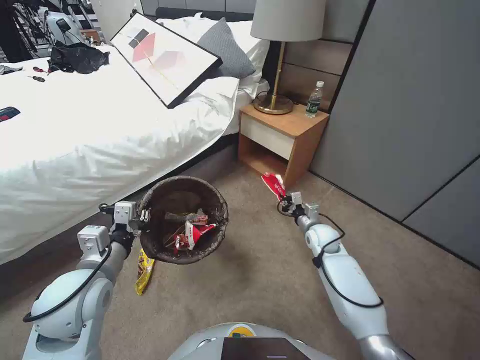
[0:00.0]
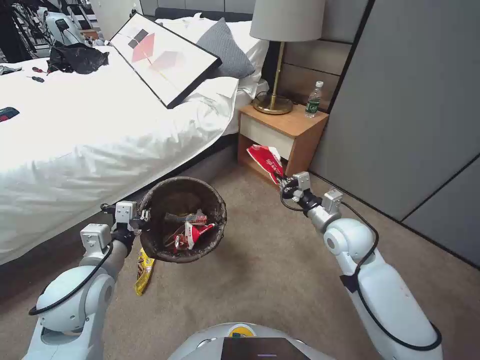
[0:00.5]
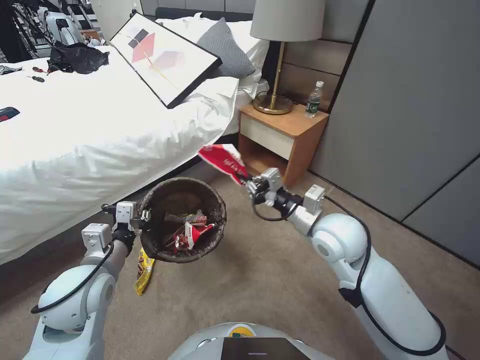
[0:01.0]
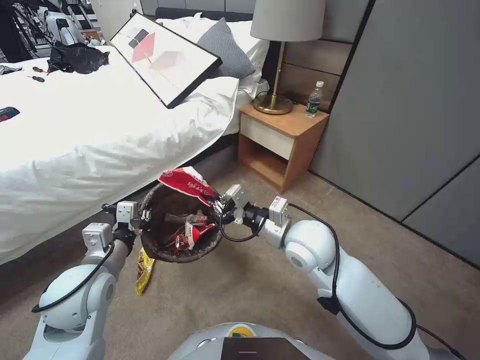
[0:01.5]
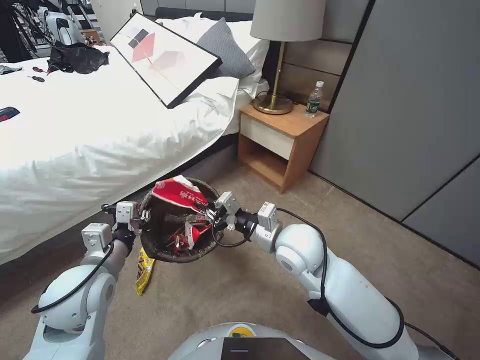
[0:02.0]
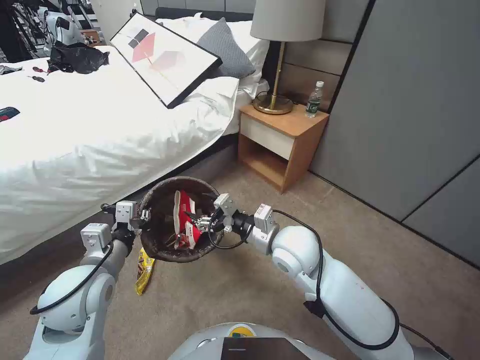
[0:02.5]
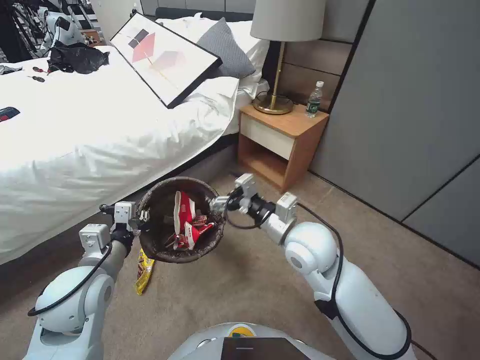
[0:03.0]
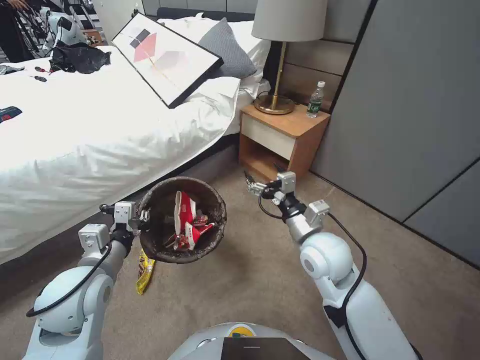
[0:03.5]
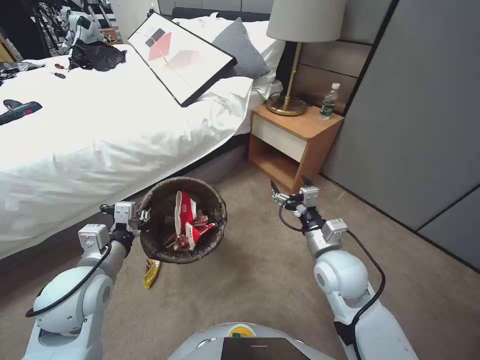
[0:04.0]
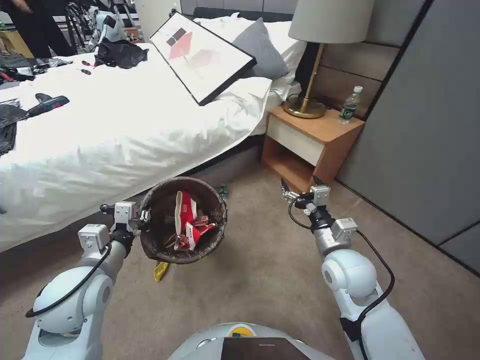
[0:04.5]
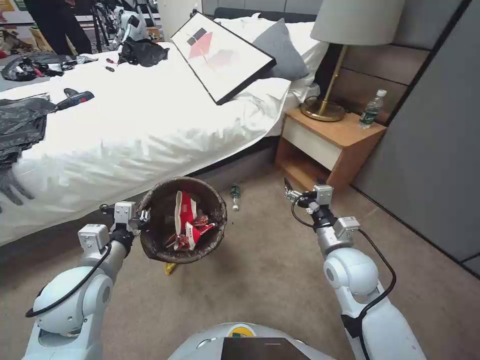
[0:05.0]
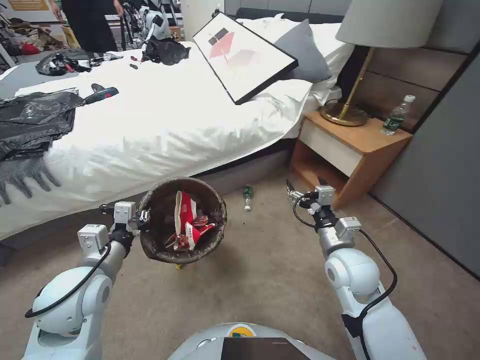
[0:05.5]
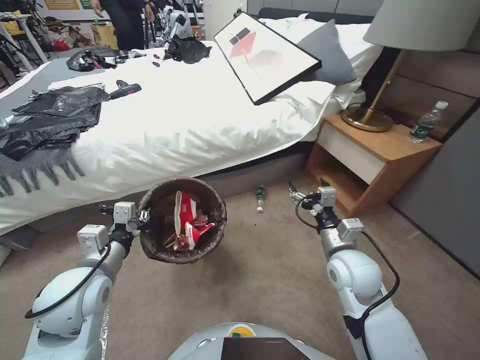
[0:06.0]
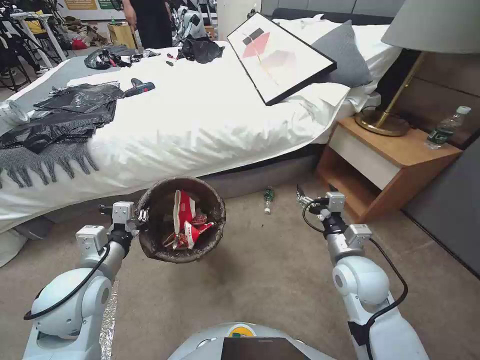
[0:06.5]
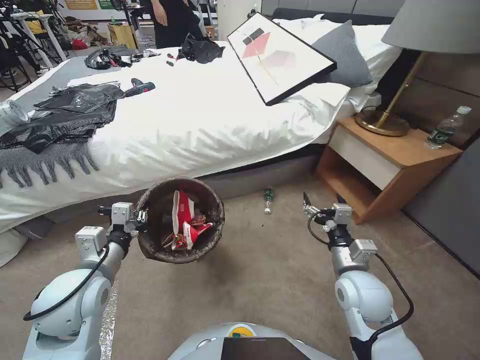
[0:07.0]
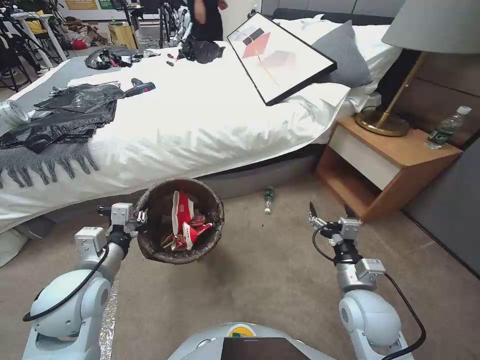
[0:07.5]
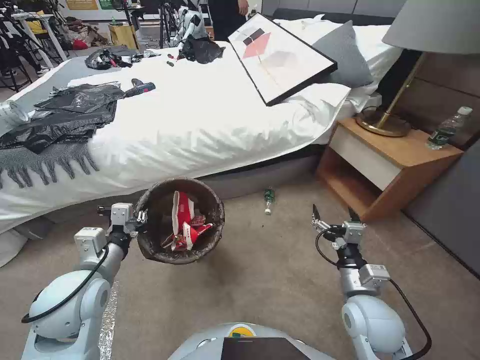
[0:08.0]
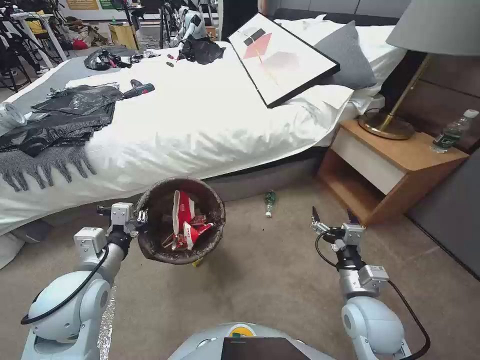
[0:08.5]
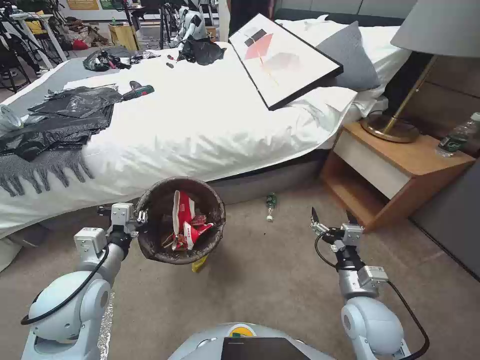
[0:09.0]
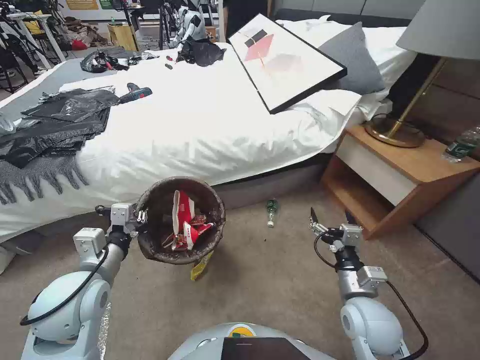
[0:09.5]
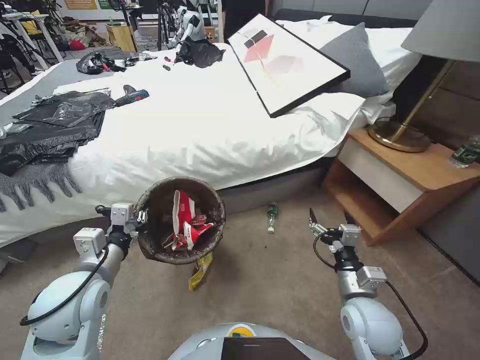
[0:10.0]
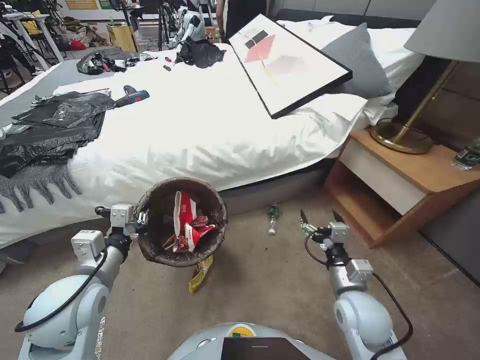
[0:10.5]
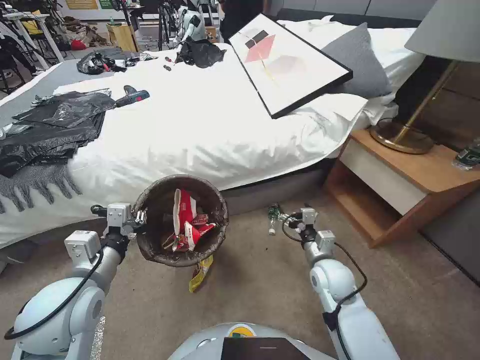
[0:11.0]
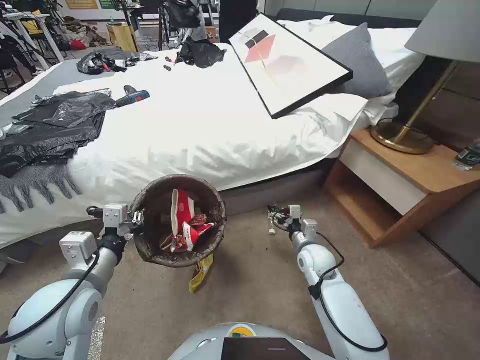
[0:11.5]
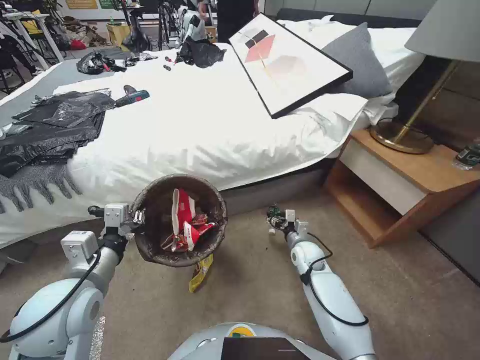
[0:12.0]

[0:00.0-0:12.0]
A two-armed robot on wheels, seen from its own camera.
Task of the whole recording: Pick up the trash bin, then pick up the garbage from the floor and place it into the trash bin.
0:00.0 to 0:02.0: The right gripper shifts about 30 cm upward, to the left and backward.
0:02.0 to 0:04.0: The right gripper goes roughly 10 cm to the right and downward, and opens.
0:06.0 to 0:08.0: The right gripper is displaced backward by some 10 cm.
0:10.0 to 0:12.0: The right gripper goes some 20 cm forward and downward.

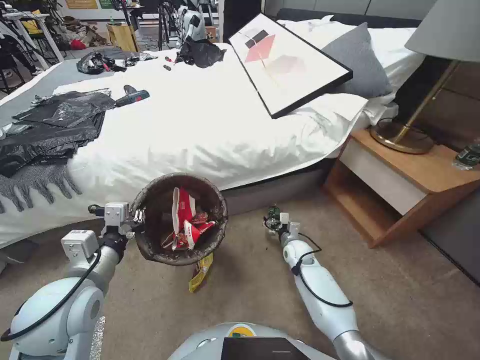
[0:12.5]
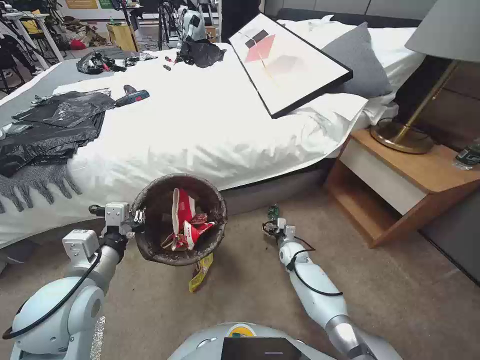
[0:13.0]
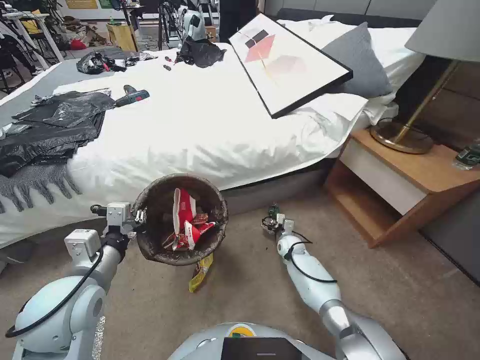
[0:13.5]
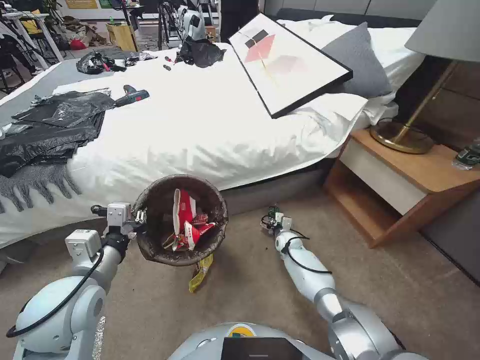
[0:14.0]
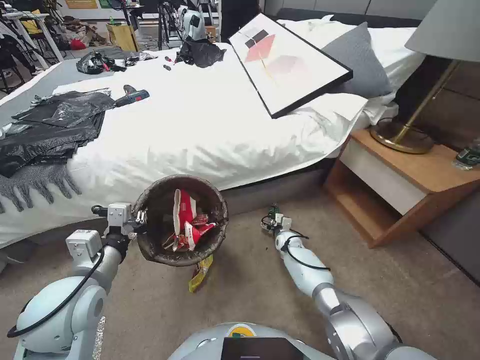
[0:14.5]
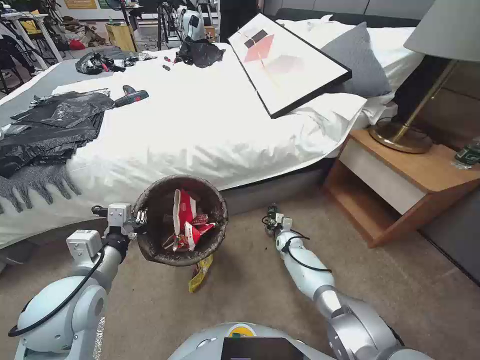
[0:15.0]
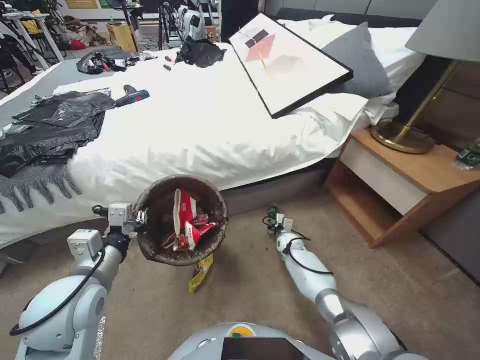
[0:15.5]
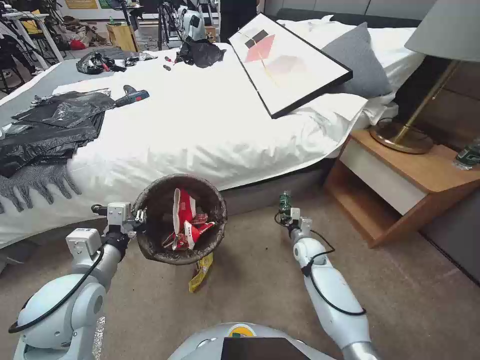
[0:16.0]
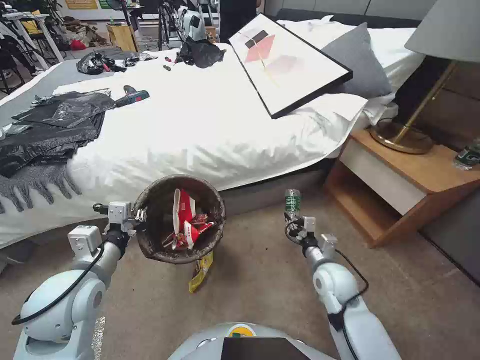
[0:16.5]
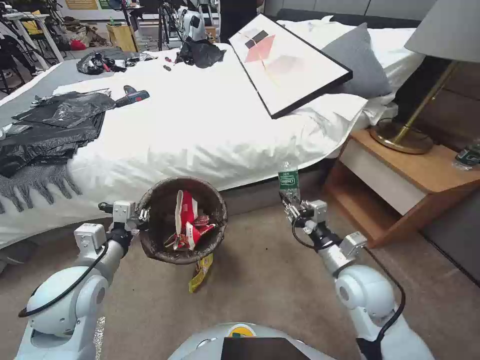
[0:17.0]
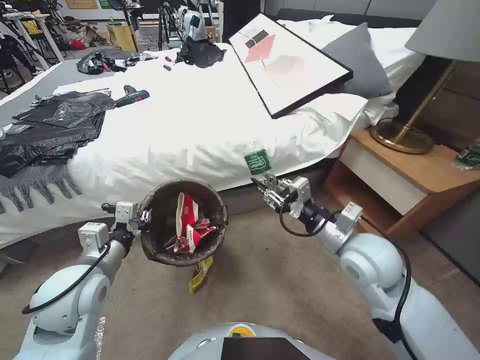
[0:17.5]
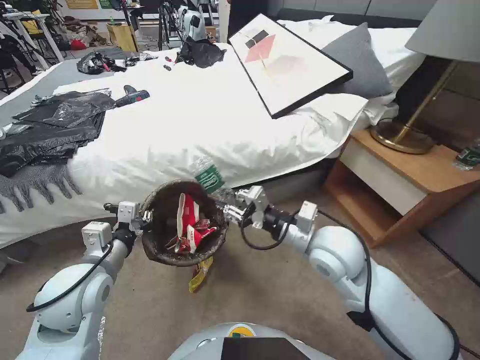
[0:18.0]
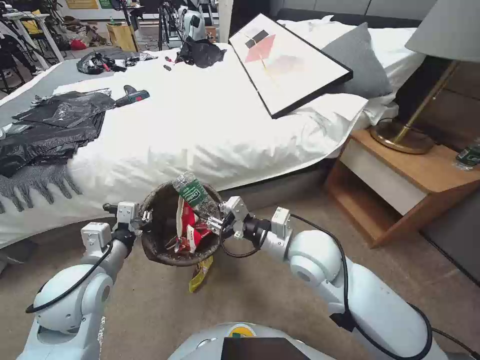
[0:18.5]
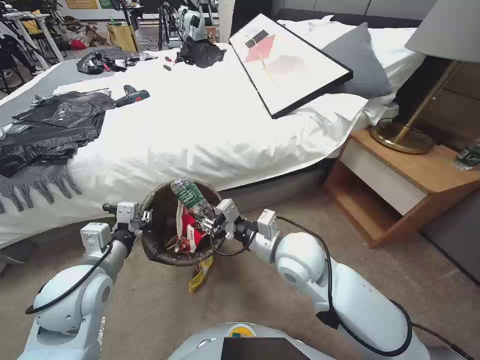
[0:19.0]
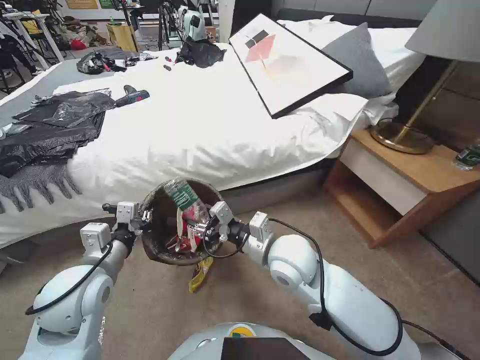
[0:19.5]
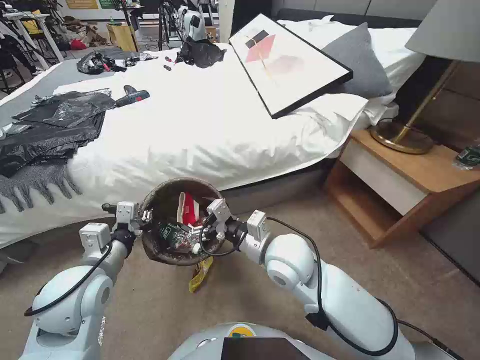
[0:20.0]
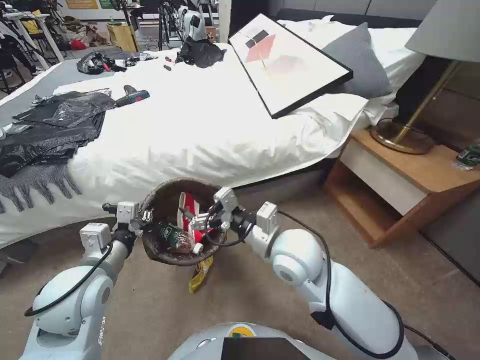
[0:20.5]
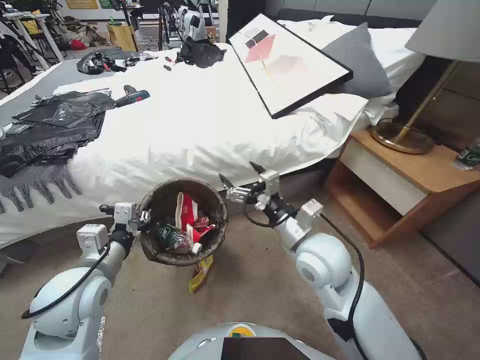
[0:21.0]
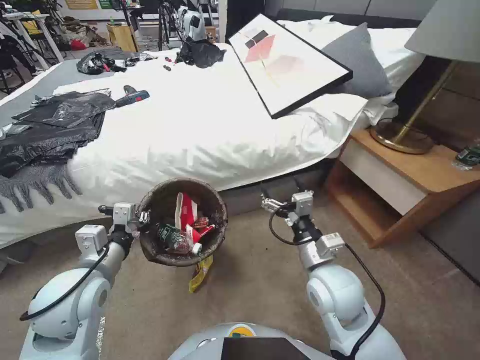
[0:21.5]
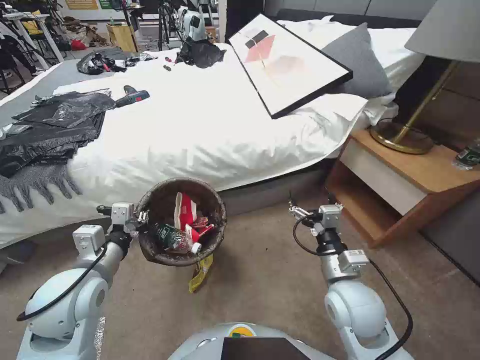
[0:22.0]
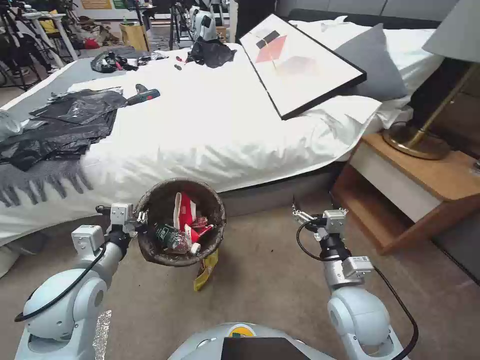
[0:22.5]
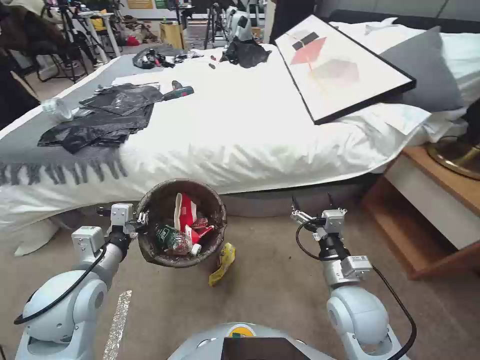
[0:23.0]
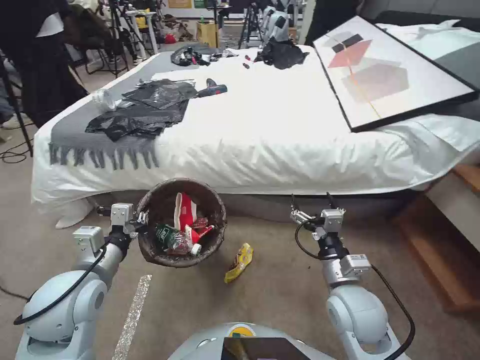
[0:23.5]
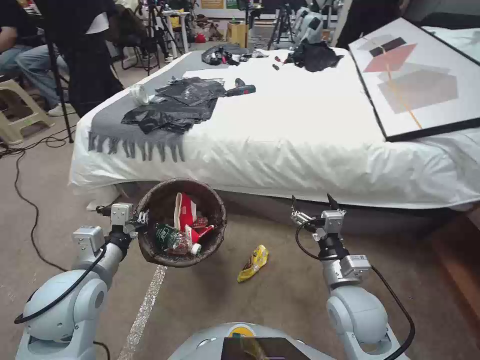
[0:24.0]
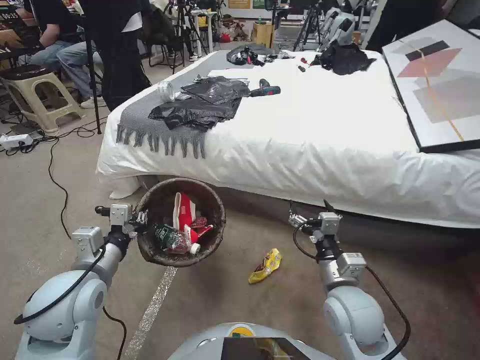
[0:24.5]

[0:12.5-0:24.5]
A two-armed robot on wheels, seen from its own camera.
Task of the whole recording: Pick up the trash bin, then pick up the garbage from the floor and place it into the trash bin.
0:12.5 to 0:14.5: The right gripper goes about 10 cm forward and downward.
0:14.5 to 0:16.5: The right gripper travels backward and upward by approximately 25 cm, and closes.
0:16.5 to 0:18.5: The right gripper travels upward and to the left by roughly 20 cm.
0:18.5 to 0:20.5: The right gripper opens its fingers.
0:20.5 to 0:22.5: The right gripper moves to the right, backward and downward, roughly 15 cm.

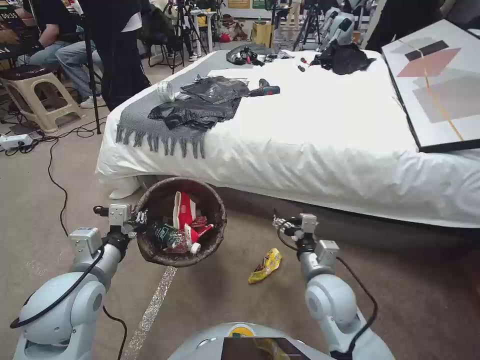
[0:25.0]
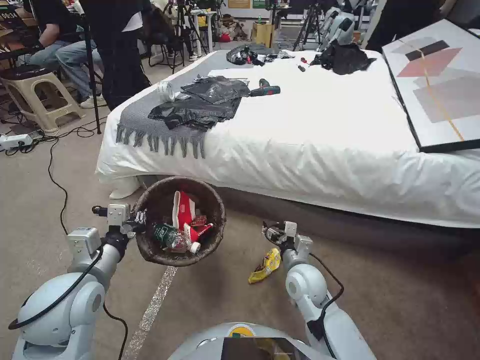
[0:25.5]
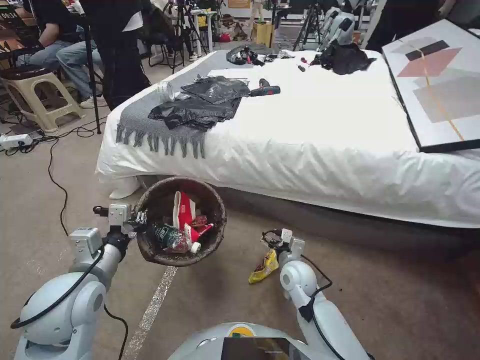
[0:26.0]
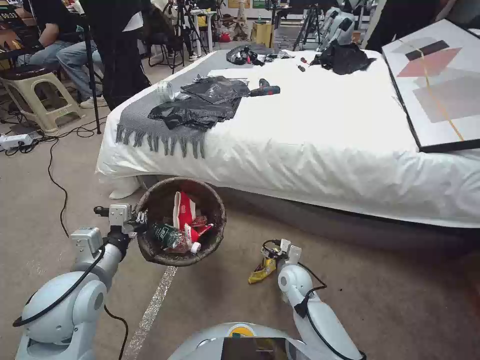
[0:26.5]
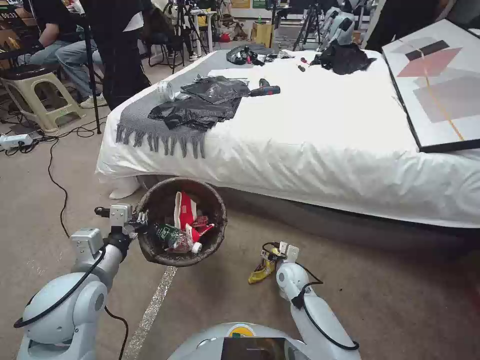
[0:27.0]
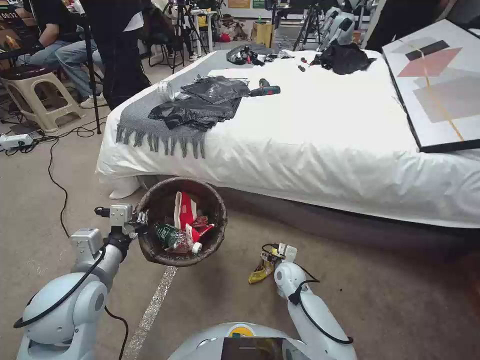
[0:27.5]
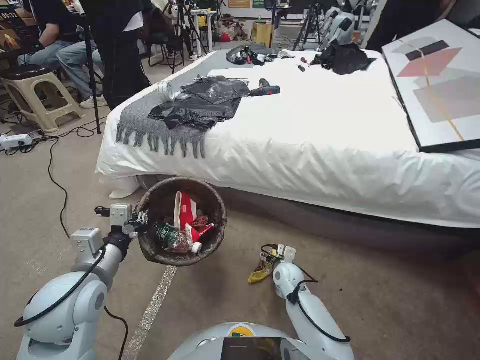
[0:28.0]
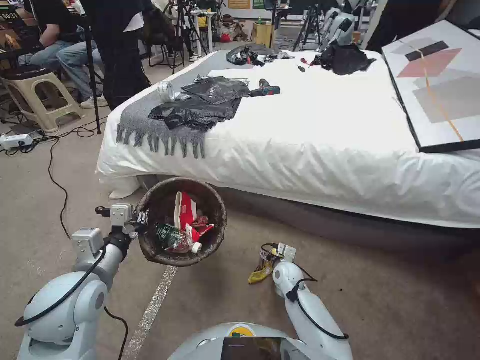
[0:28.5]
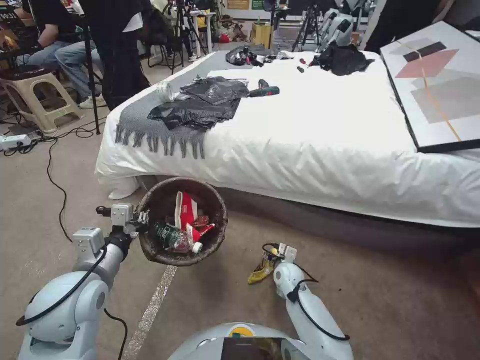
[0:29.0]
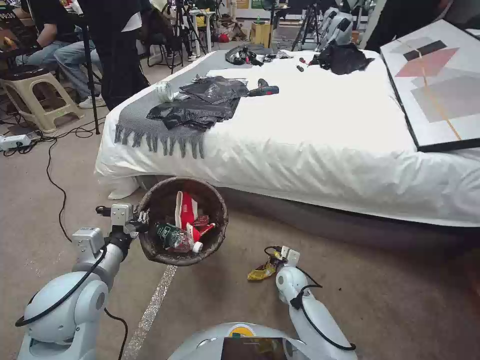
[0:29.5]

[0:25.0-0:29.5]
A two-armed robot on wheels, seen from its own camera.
Task of the whole recording: Pick up the trash bin, then pick up the garbage from the floor and place it into the trash bin.
0:25.0 to 0:27.0: The right gripper goes roughly 20 cm downward and forward.
0:27.0 to 0:29.5: The right gripper closes up.
